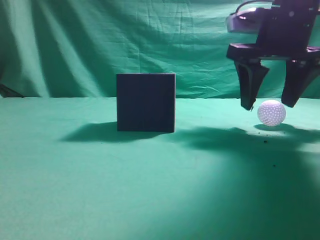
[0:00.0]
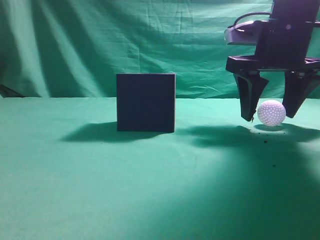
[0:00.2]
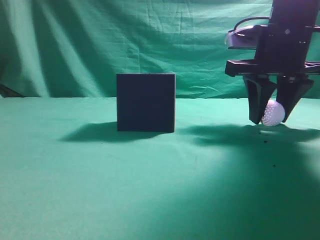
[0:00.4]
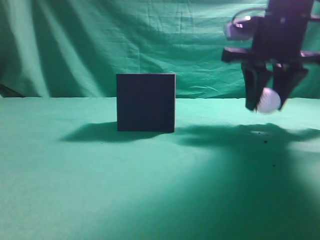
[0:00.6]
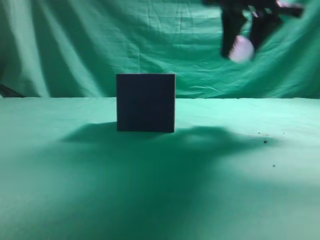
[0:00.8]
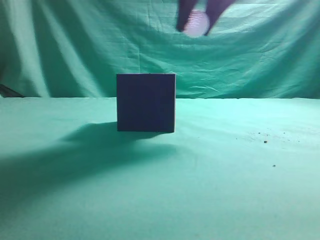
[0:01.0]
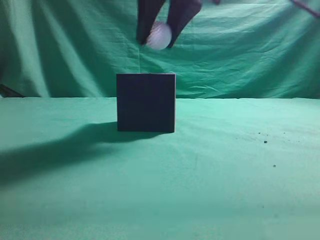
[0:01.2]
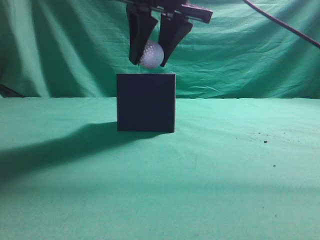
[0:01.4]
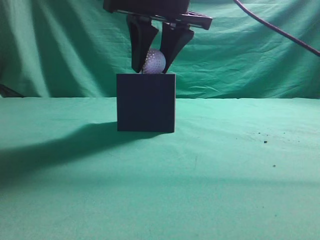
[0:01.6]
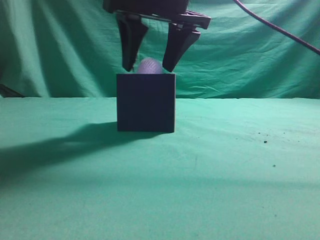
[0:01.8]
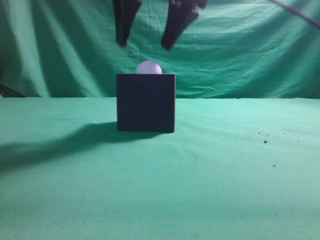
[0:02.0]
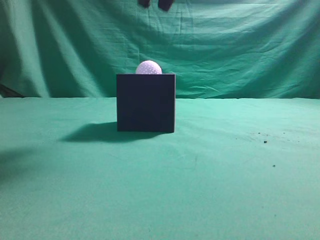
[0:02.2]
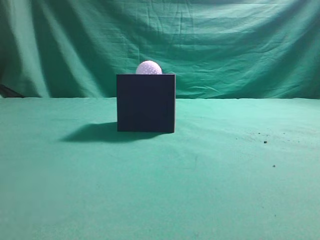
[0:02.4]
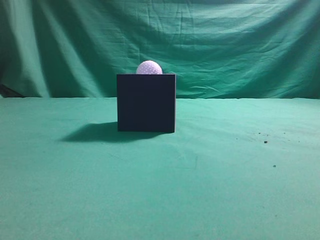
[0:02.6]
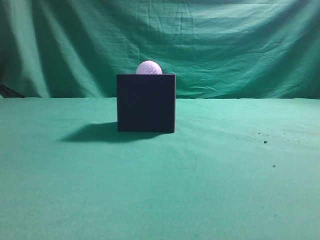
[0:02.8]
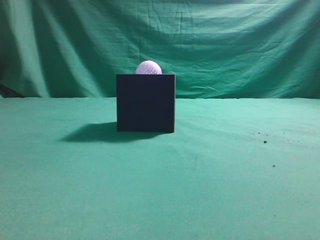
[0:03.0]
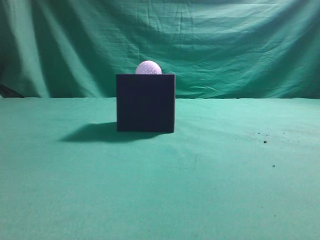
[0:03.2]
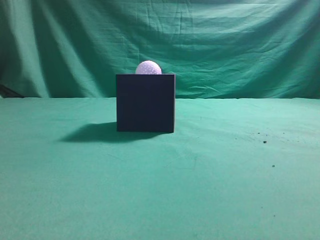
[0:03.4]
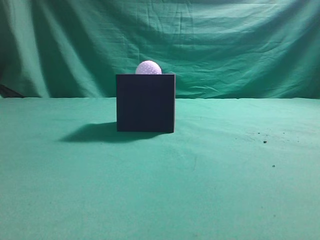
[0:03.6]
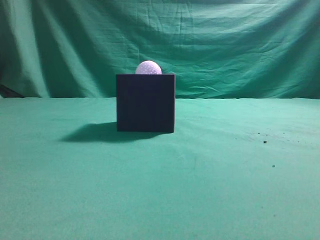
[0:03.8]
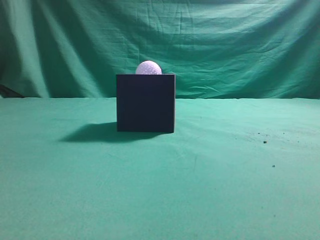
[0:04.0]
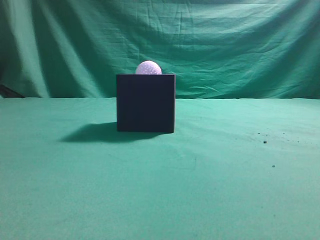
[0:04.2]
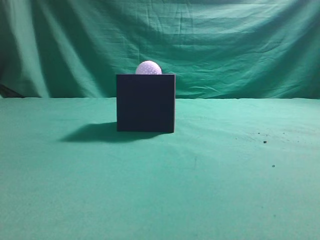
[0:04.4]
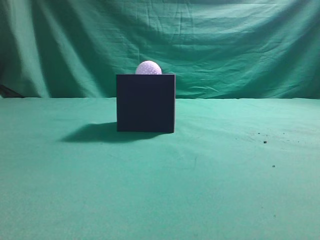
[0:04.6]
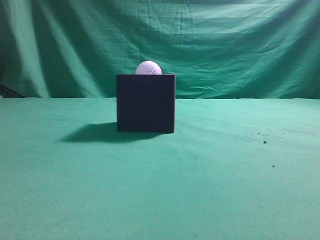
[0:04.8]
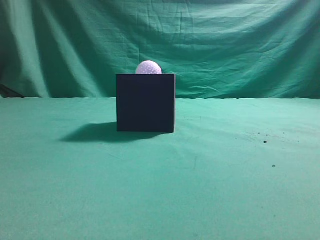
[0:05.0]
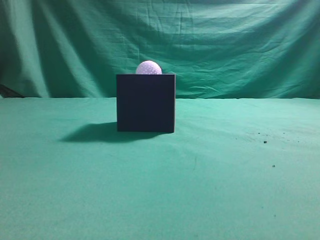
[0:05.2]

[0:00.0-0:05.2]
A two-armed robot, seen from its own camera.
Task of the whole recording: Pick up the ball and place it in the circular groove above the cube.
Step, 0:00.0 to 0:01.0: Place the sphere into the sphere-shaped recess.
0:00.0 to 0:01.8: The right gripper travels to the left by roughly 15 cm.
0:01.8 to 0:03.4: The right gripper moves backward, to the right and upward, some 35 cm, and closes its fingers.
